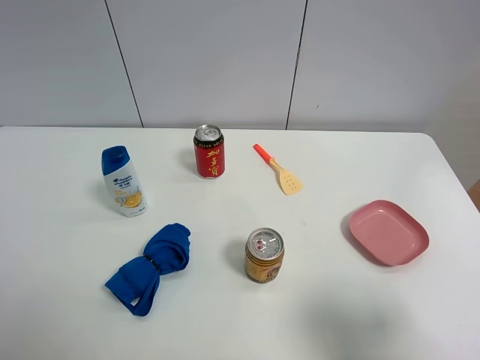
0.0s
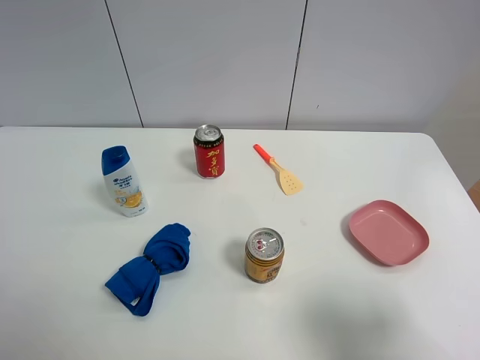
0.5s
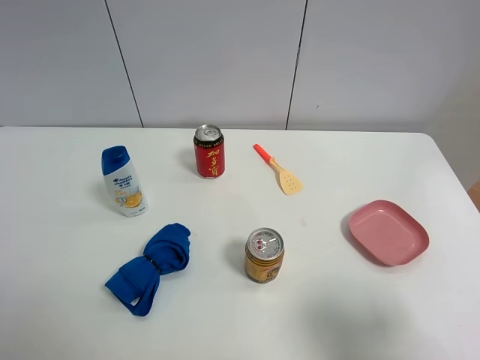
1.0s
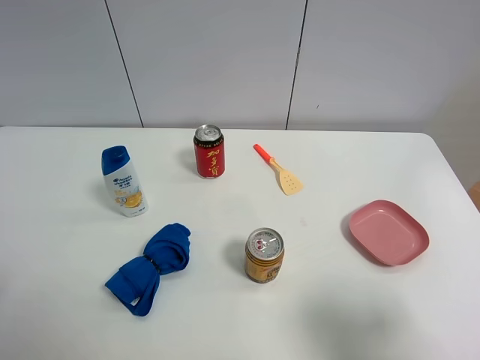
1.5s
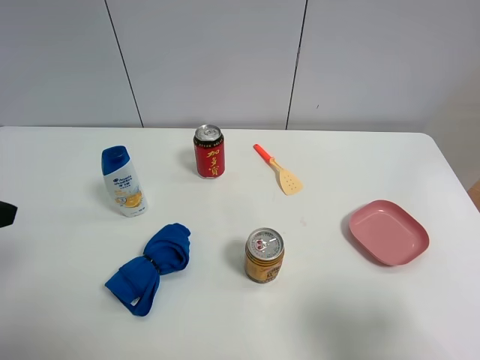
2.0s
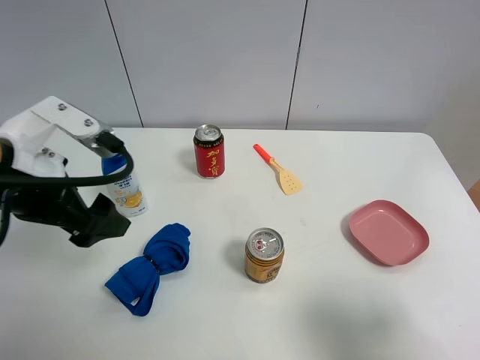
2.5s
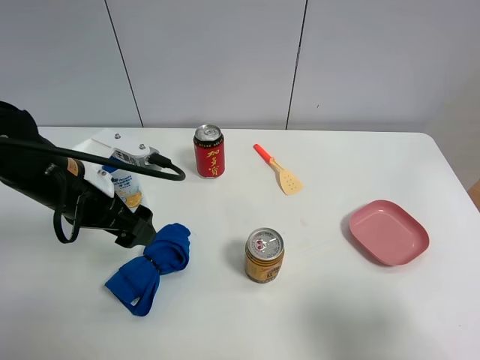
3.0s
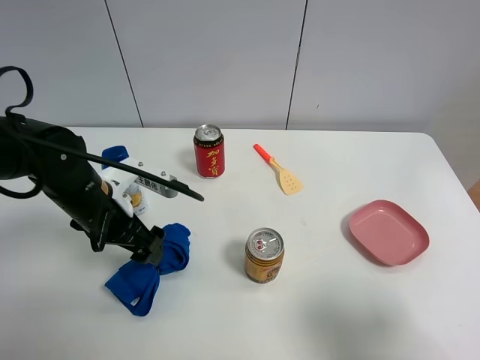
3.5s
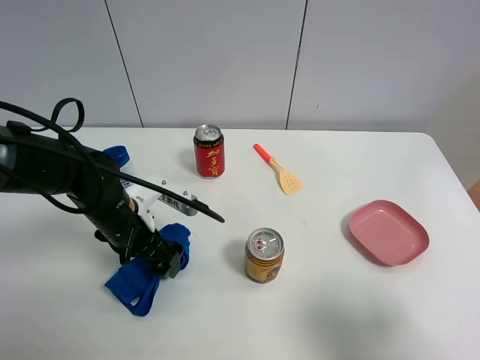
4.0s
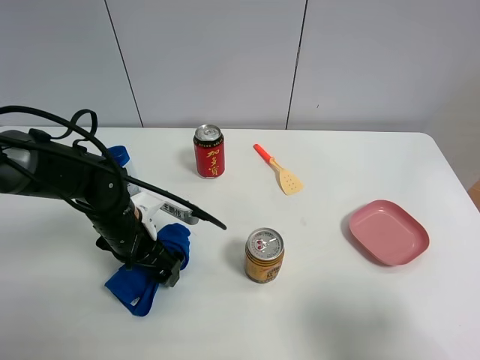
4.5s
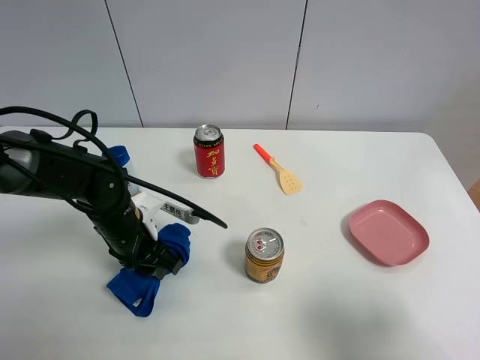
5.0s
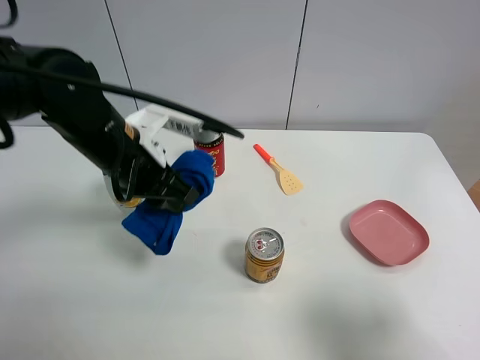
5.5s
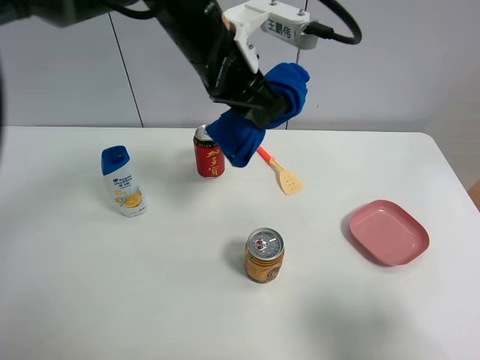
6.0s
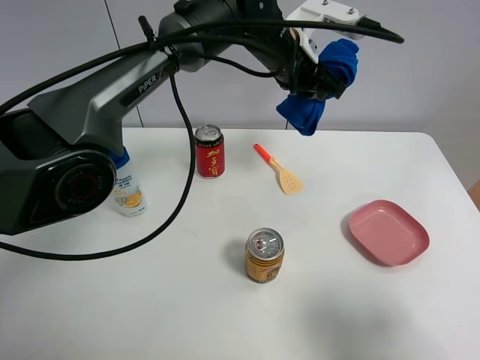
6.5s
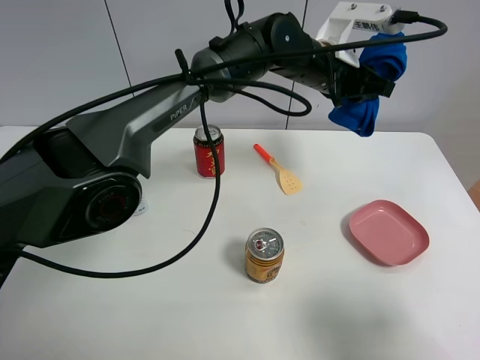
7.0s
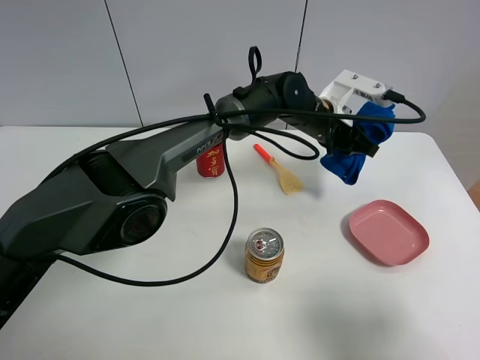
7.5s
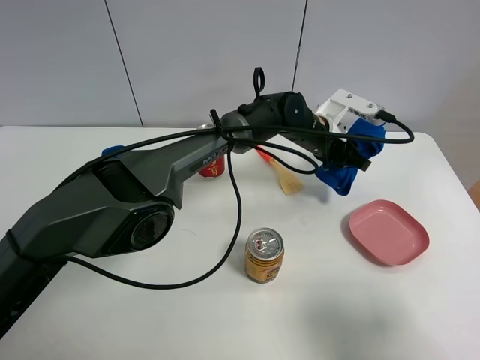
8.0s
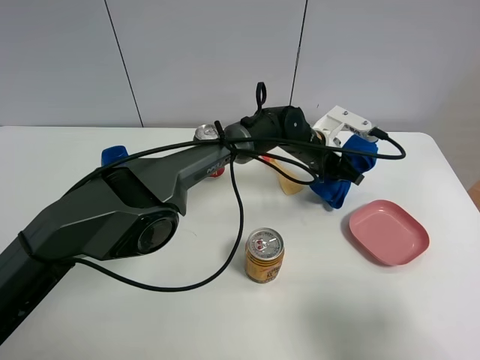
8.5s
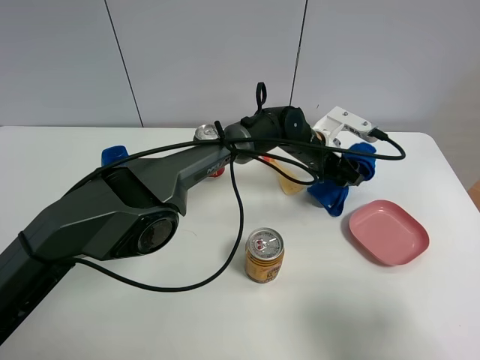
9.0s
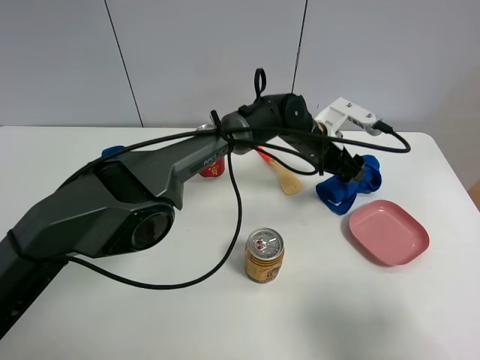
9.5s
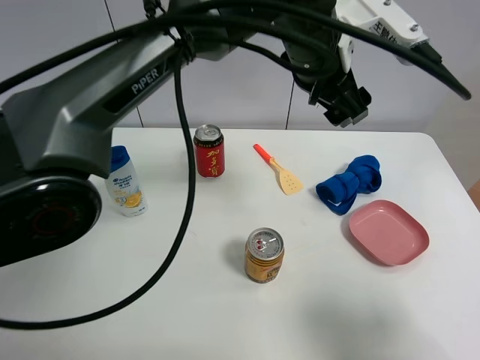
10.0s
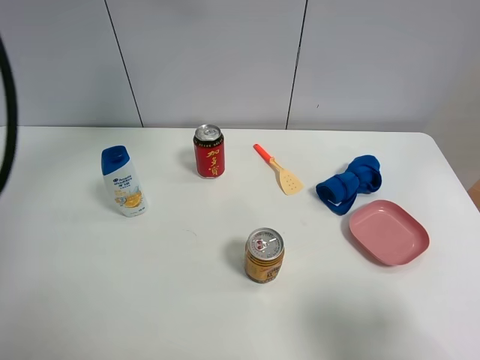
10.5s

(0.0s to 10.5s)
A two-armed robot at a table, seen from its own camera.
Task of the whole recording: the gripper move the object.
Step, 0.0s - 5.0s: Grasp the blue towel with the left gripper.
Step, 5.5s - 9.0s: Place the blue towel on the table with the left gripper.
2.0s - 4.0s: The left gripper heads downward, to the right and forward, covering roughly 25 cm.
4.0s - 6.5s: The left gripper travels to the right, forward and upward by roughly 30 cm, and closes its fingers.
6.5s - 8.5s: The left gripper travels downward and to the right by approximately 20 cm.
8.5s - 10.5s: The left gripper moves upward and to the left, about 40 cm, and opens its fingers.

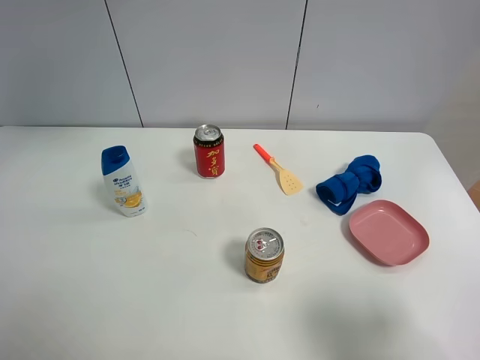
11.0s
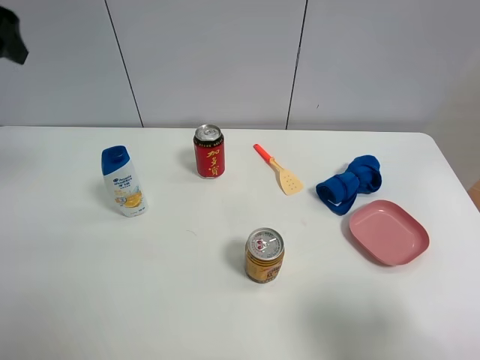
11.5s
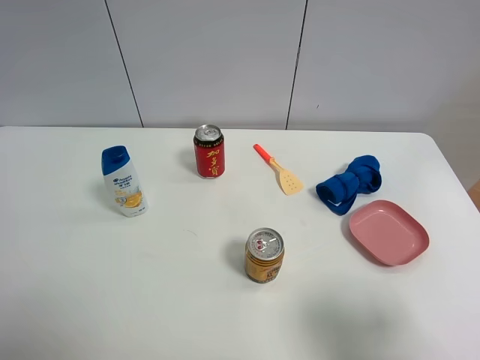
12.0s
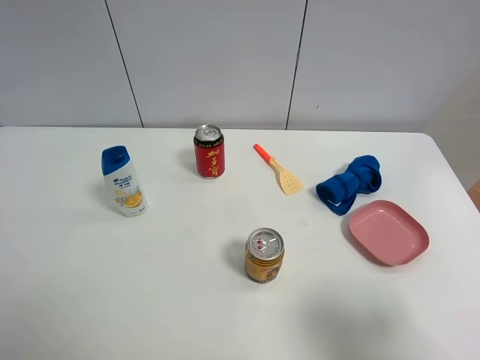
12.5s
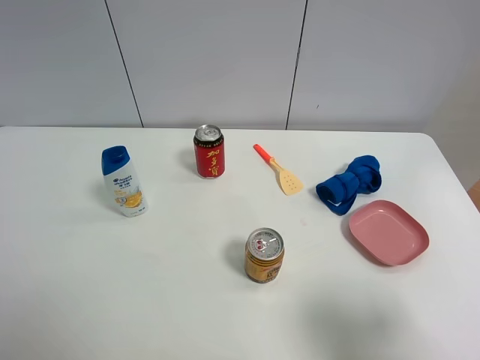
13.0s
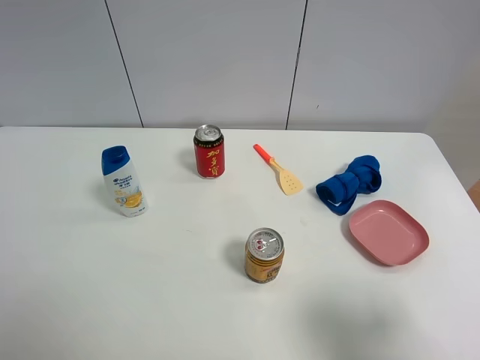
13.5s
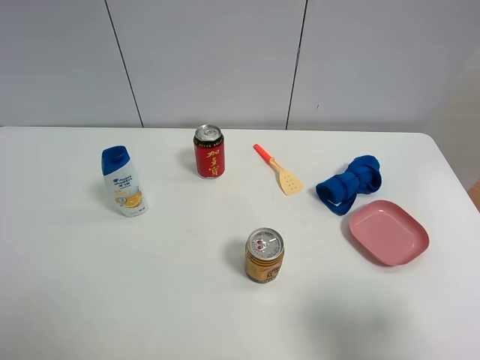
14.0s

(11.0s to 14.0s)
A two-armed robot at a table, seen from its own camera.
Task of the whole recording: the gripper move the object.
11.0s - 12.5s: The left gripper shifts about 35 cm backward.

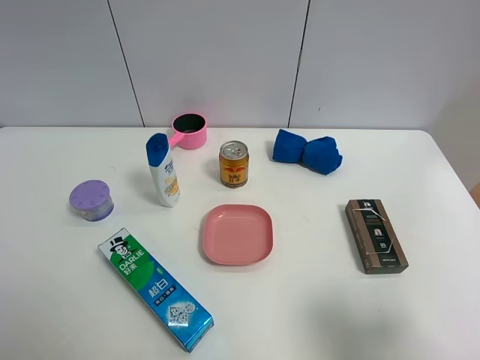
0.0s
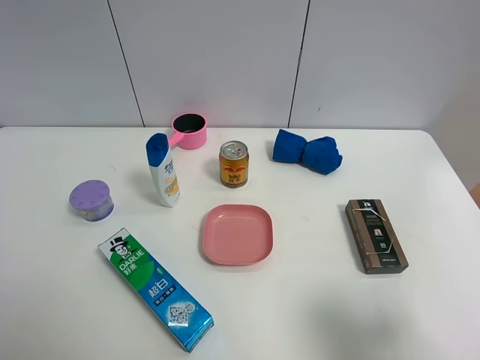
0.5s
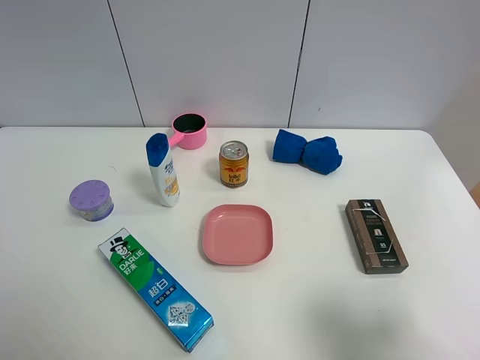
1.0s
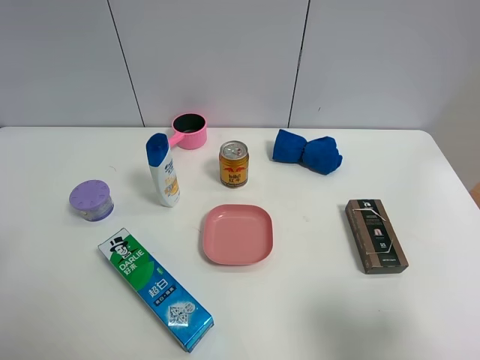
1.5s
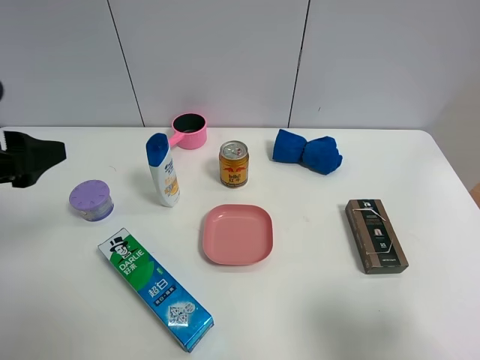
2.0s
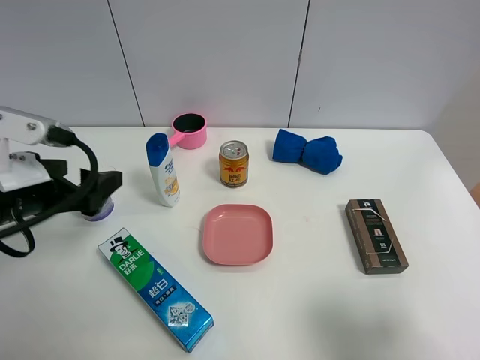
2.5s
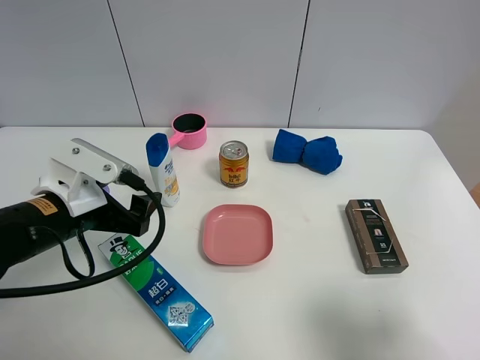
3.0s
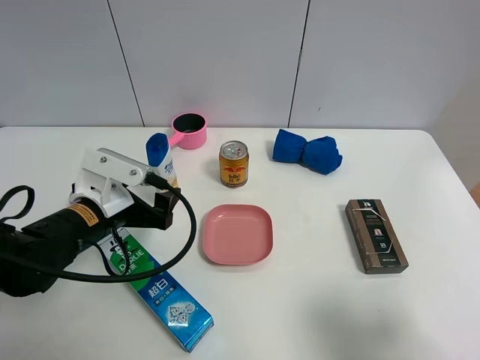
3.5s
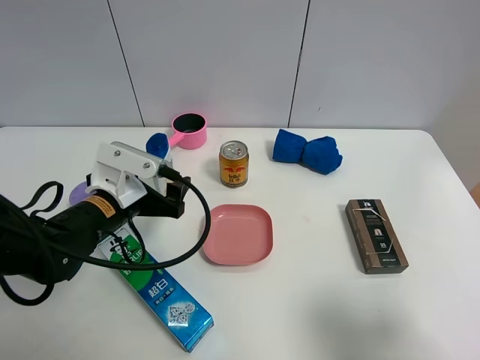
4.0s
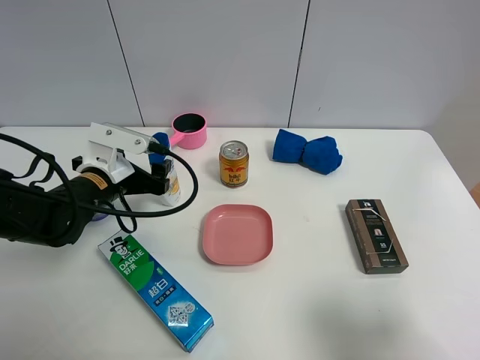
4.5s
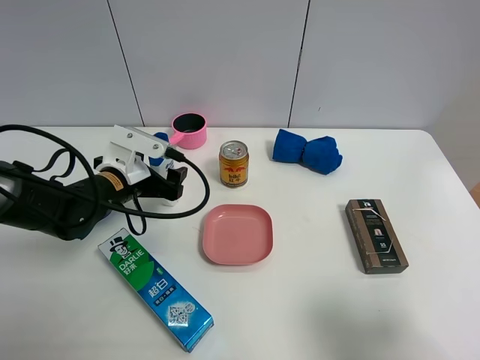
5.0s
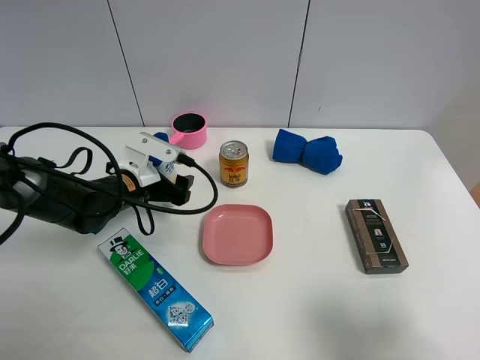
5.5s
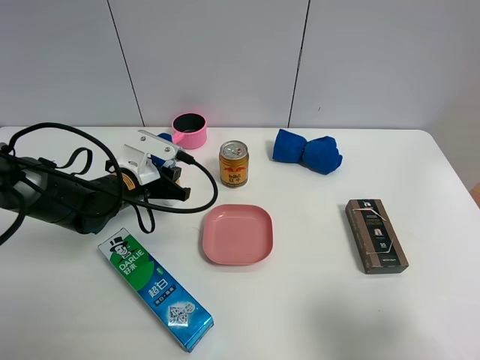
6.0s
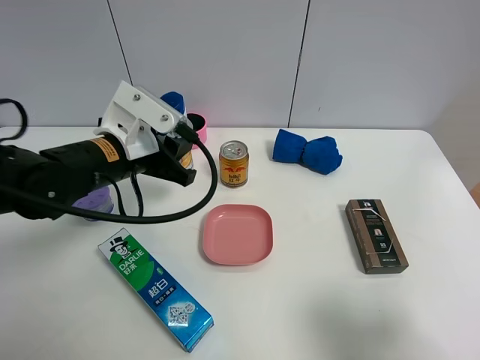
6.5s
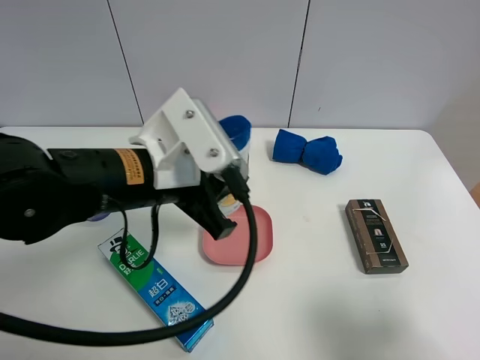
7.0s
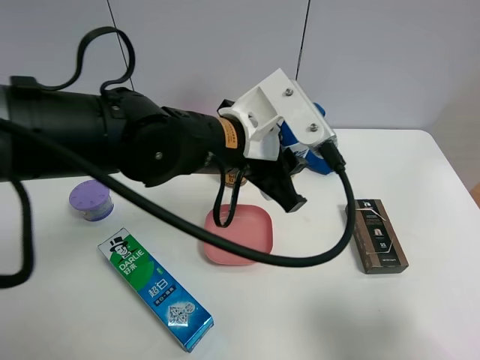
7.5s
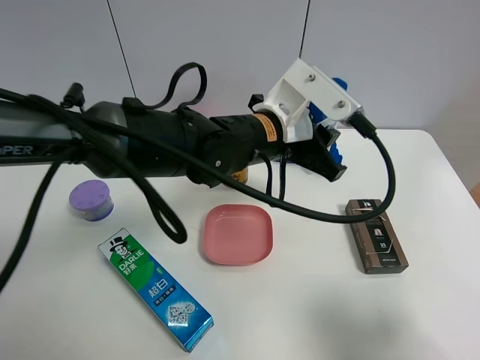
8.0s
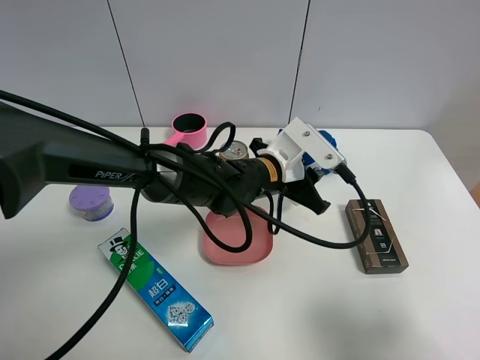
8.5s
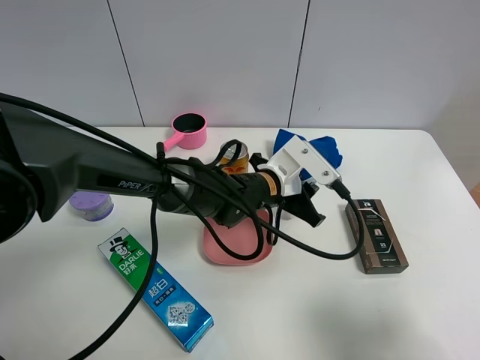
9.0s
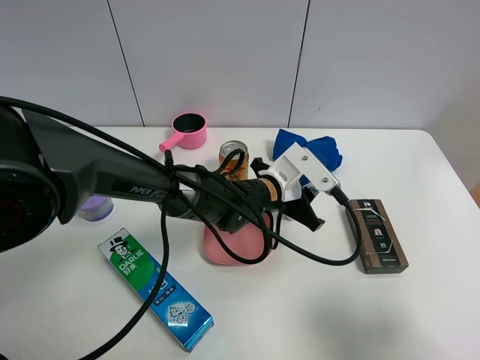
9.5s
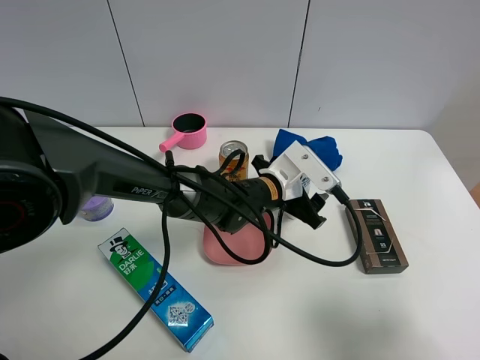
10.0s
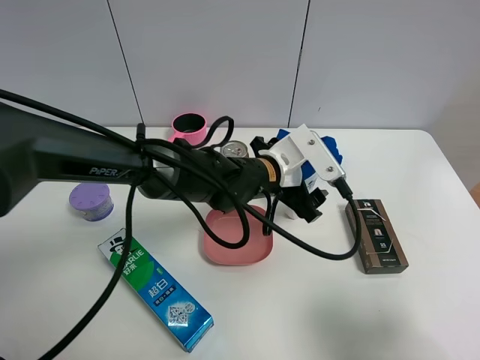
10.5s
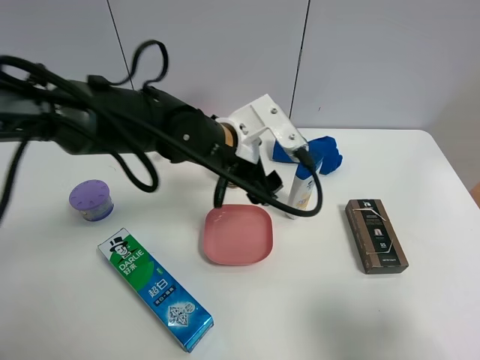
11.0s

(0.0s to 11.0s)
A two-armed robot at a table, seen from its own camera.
Task of the whole recording: the gripper move the object.
Step, 0.0s - 6.0s: Grasp the shampoo with the left gripper.
Step, 6.5s - 10.0s: Place the shampoo on the table with the left gripper.
0.0s - 2.0s: The left gripper moves forward, approximately 20 cm.
2.0s - 3.5s: The left gripper is displaced downward and to the right by roughly 20 cm.
3.5s - 5.5s: The left gripper heads forward, covering about 10 cm.
5.5s - 7.5s: The left gripper is displaced to the right, upward and backward by roughly 25 cm, and closes its fingers.
7.5s - 9.0s: The left gripper heads downward, covering some 15 cm.
9.0s - 11.0s: The left gripper shifts approximately 15 cm upward and to the left, and opens.

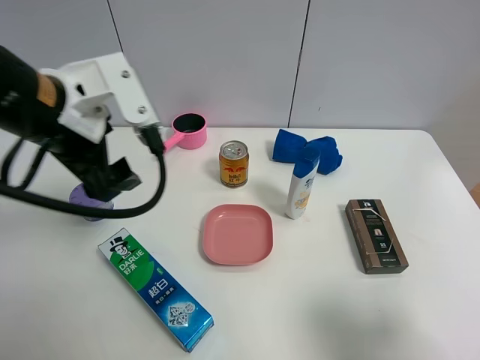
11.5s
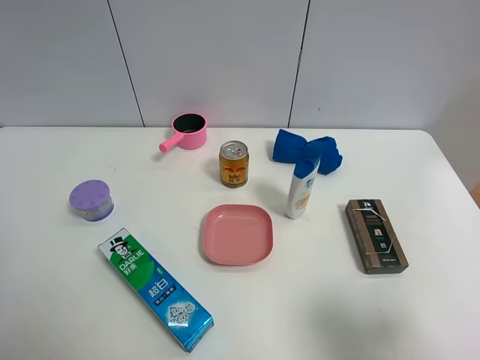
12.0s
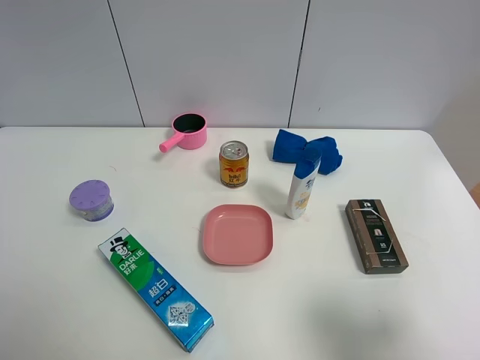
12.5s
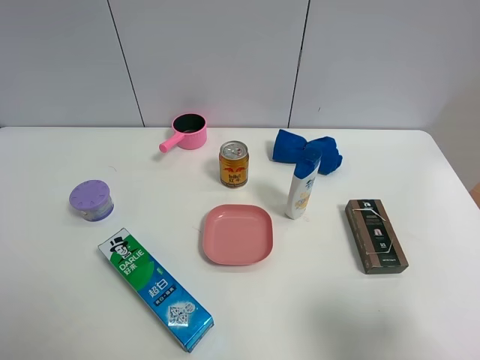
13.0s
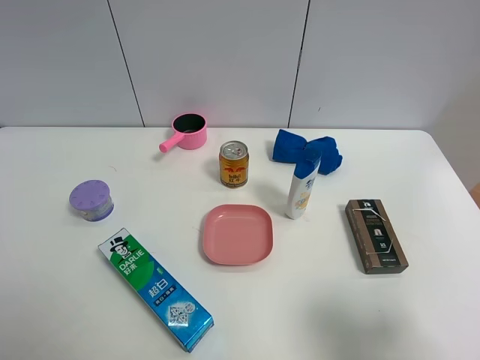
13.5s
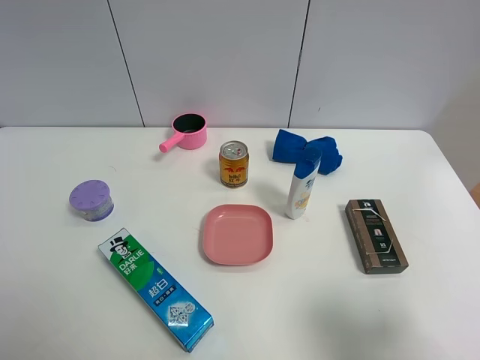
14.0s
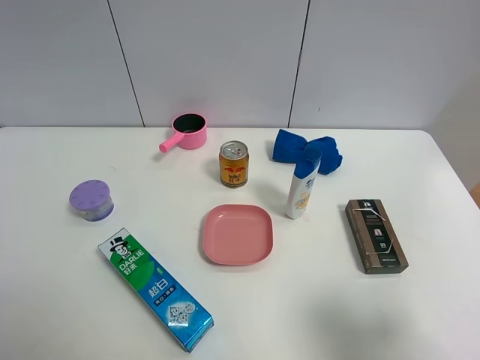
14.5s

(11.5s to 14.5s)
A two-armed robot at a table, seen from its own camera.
Task of the whole recording: the gripper move the object.
11.5s - 13.0s: The left gripper is displaced backward and to the left by about 30 cm.
